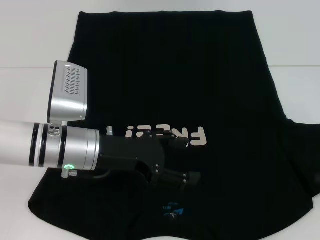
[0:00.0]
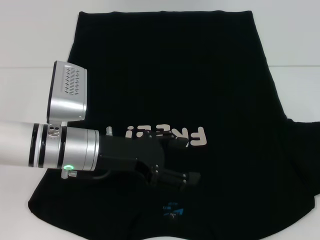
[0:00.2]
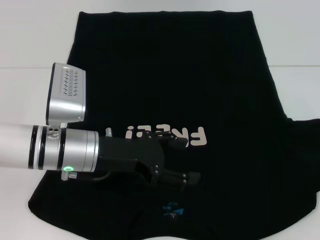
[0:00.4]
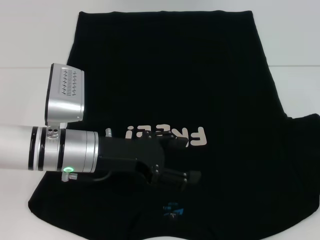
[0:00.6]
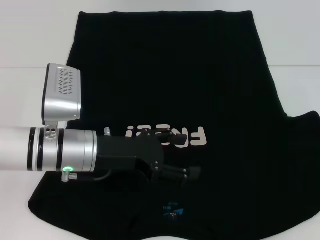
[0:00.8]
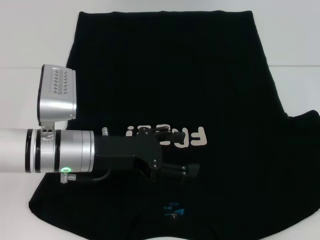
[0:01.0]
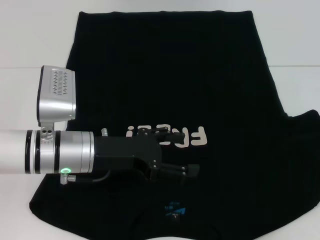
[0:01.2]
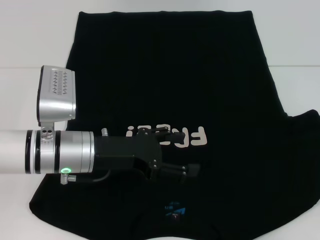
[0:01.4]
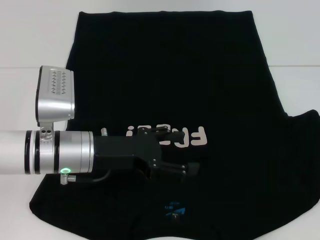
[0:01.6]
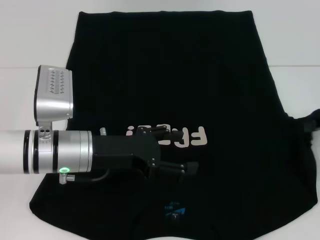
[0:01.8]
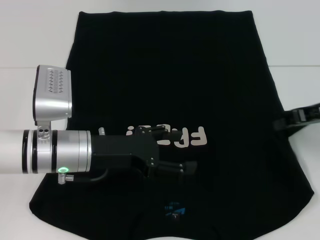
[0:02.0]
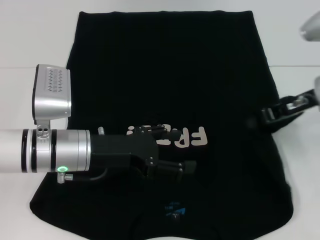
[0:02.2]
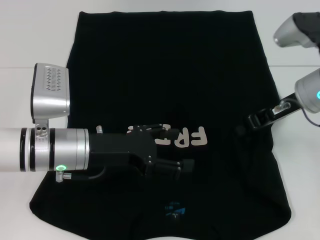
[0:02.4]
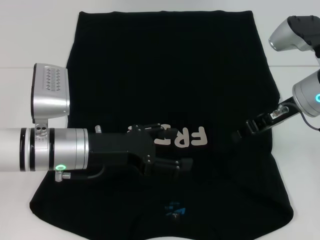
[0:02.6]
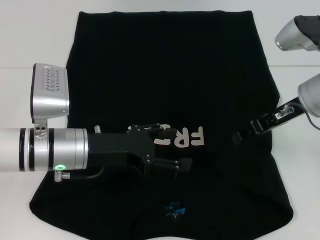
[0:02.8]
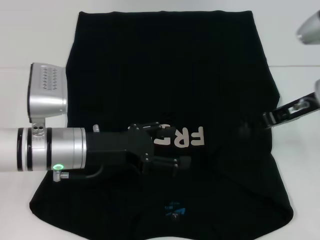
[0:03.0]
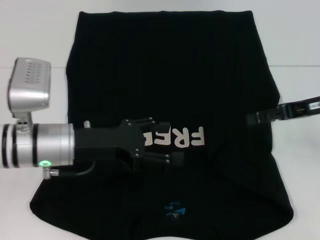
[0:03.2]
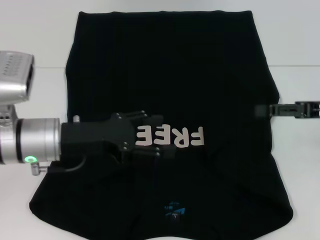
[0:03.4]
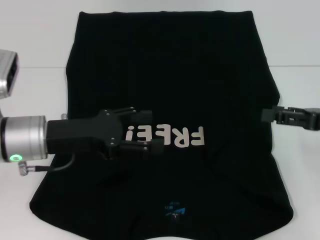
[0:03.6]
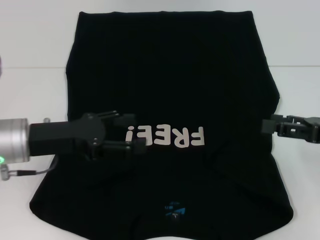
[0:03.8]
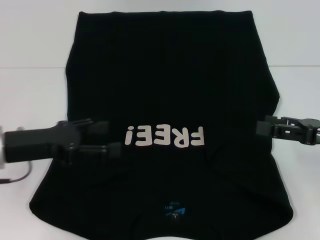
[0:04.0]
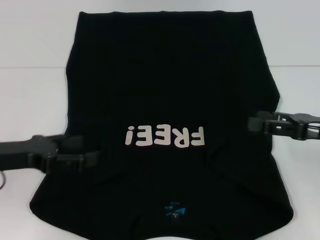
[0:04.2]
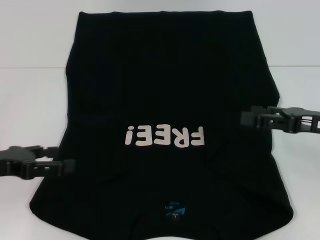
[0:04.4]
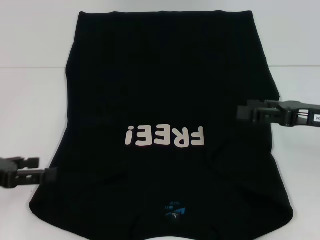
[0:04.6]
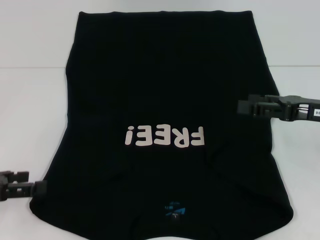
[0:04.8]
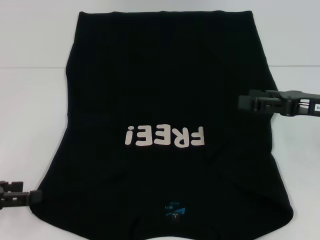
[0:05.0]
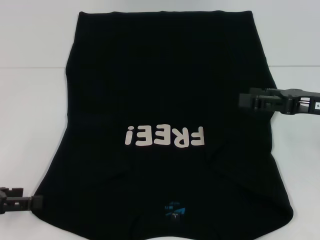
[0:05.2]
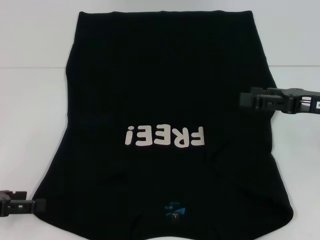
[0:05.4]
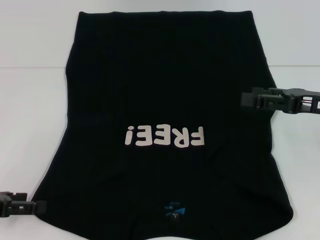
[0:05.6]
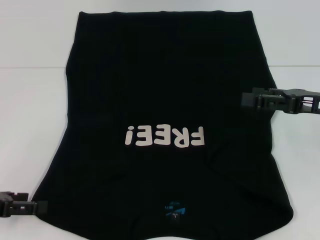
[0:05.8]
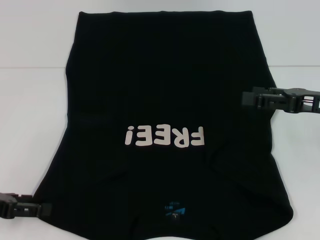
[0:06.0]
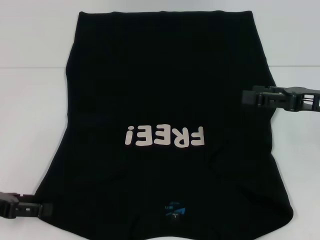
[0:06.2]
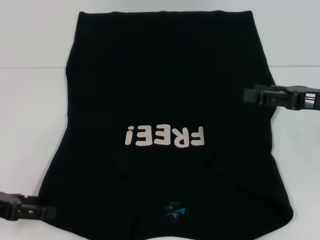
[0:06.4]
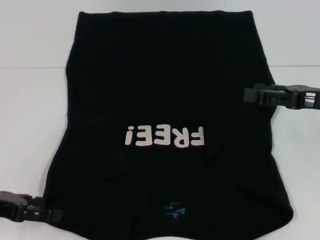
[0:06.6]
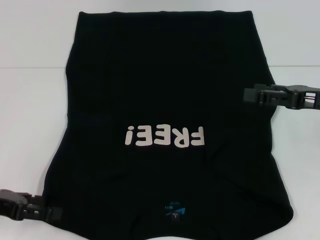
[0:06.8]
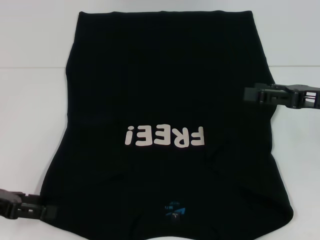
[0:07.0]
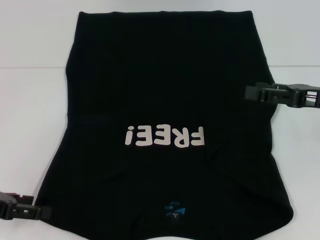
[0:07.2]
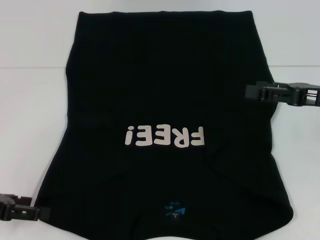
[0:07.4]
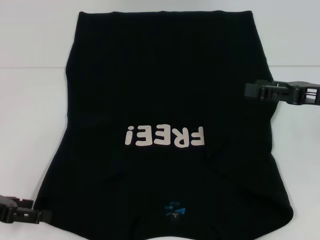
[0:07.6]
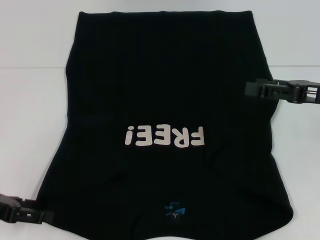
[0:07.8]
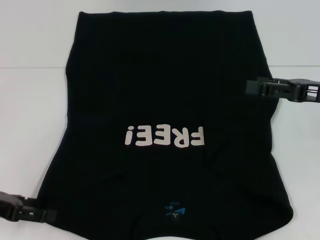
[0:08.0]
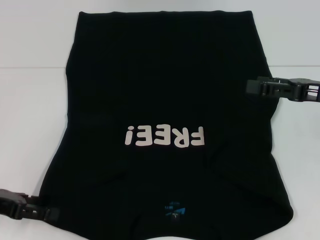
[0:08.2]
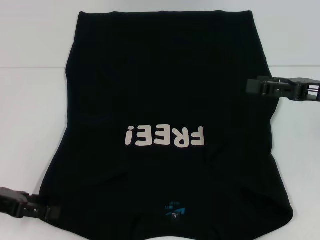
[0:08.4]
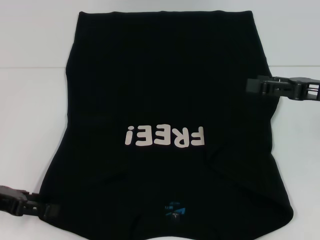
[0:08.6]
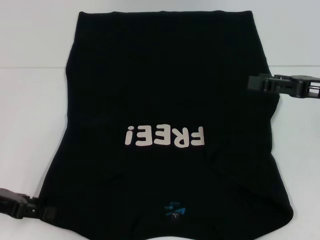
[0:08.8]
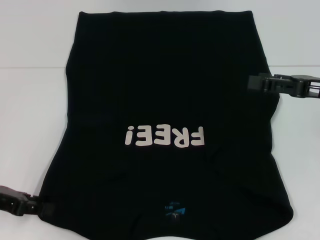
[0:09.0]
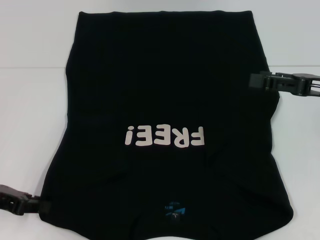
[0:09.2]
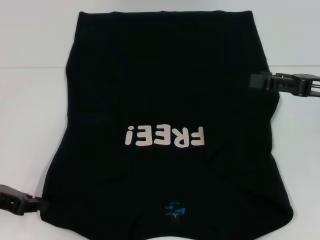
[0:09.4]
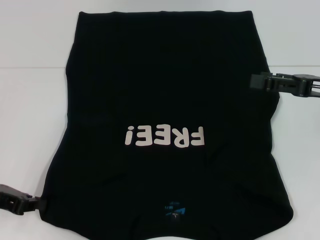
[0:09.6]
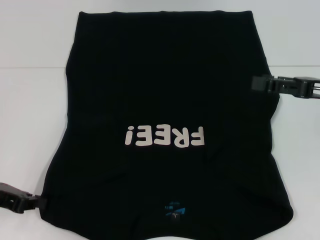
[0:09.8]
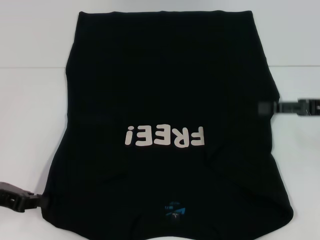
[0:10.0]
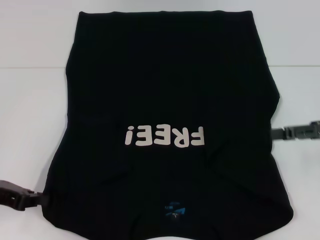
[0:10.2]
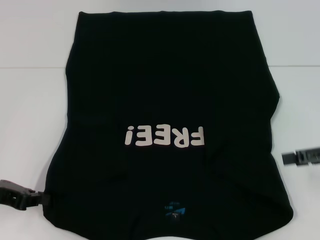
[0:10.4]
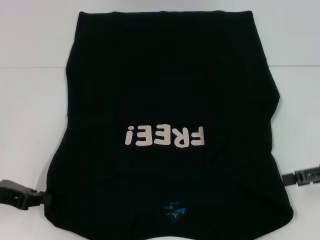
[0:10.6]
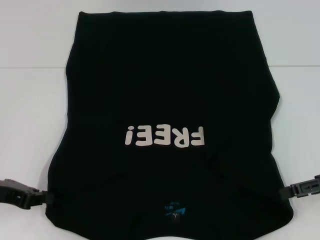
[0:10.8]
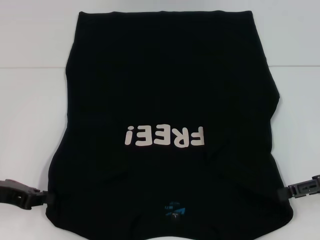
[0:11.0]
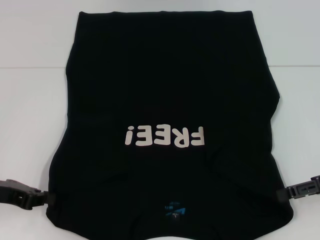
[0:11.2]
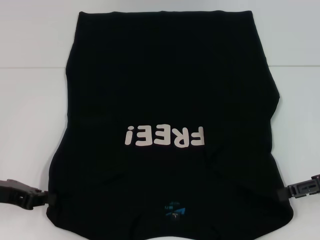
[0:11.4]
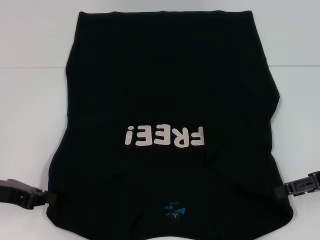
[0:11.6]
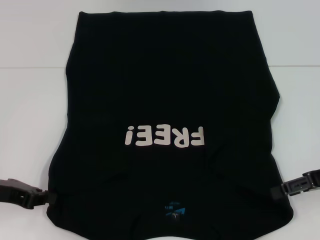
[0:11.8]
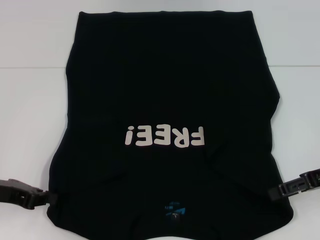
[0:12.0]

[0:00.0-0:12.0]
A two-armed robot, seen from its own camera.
Step, 0:01.0 to 0:03.4: Fold the bottom right sleeve with your right hand.
0:00.0 to 0:01.6: The right gripper moves about 5 cm.
0:01.6 to 0:03.0: The right gripper heads to the left, covering some 15 cm, and opens.
0:03.0 to 0:04.4: The left gripper shifts about 15 cm to the left. Meanwhile the right gripper goes roughly 5 cm backward, and opens its fingers.
0:04.4 to 0:06.0: The left gripper shifts by approximately 5 cm.
0:06.0 to 0:09.0: There are only small adjustments of the grippers.
0:09.0 to 0:10.4: The right gripper shifts by some 5 cm, while the left gripper closes.
0:10.4 to 0:12.0: The grippers make only small movements.

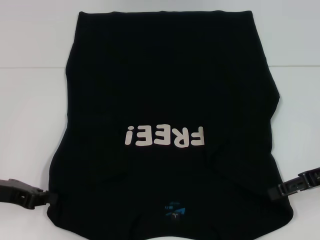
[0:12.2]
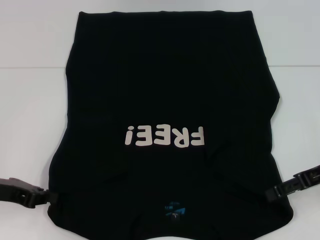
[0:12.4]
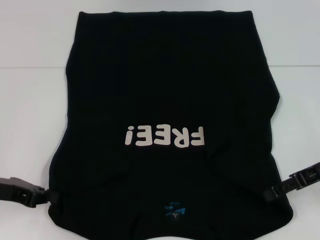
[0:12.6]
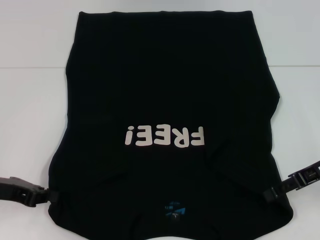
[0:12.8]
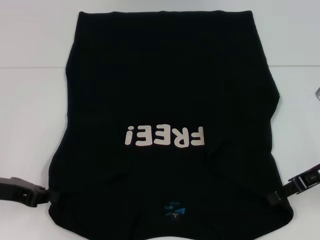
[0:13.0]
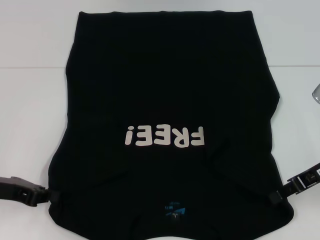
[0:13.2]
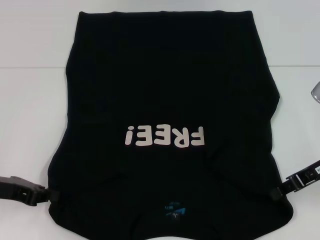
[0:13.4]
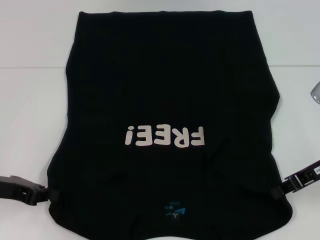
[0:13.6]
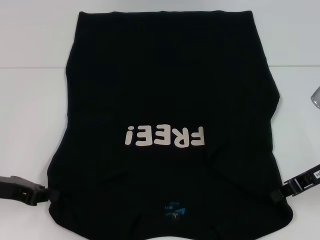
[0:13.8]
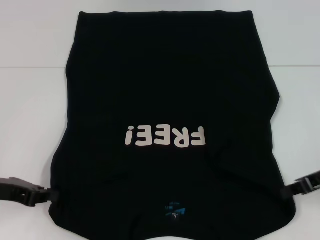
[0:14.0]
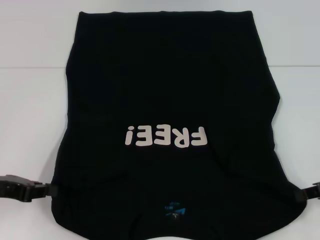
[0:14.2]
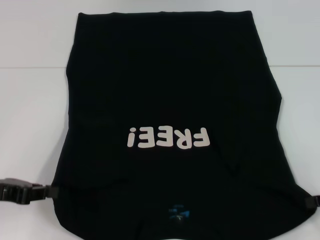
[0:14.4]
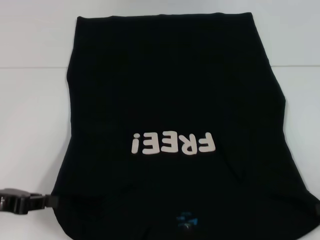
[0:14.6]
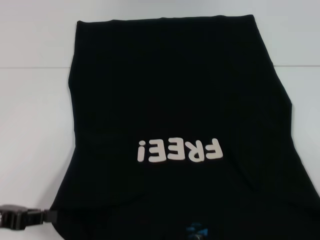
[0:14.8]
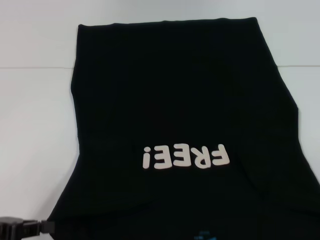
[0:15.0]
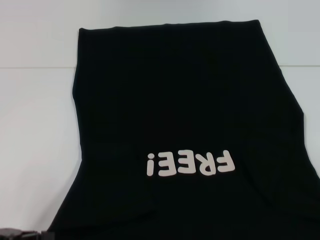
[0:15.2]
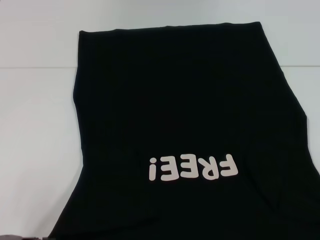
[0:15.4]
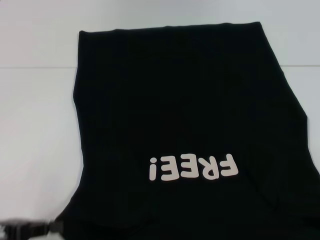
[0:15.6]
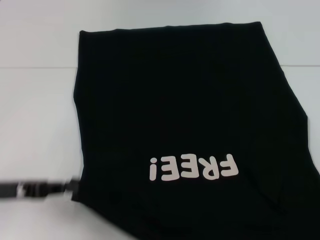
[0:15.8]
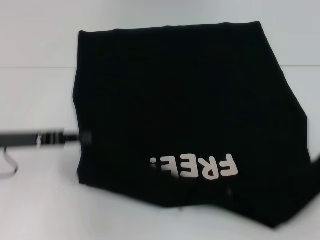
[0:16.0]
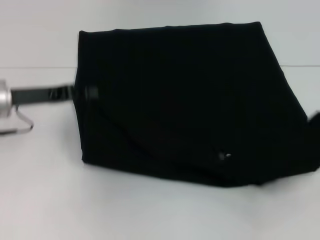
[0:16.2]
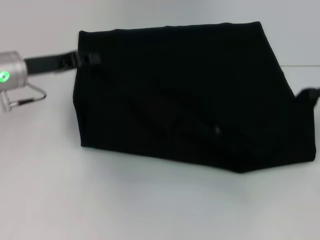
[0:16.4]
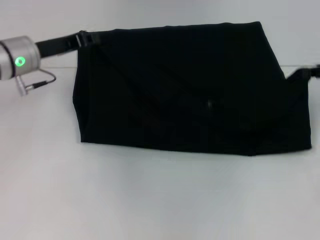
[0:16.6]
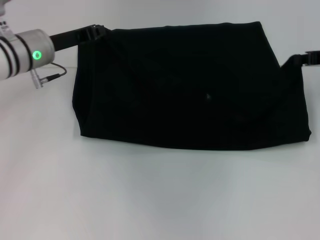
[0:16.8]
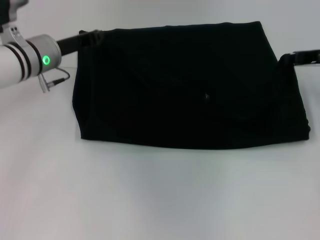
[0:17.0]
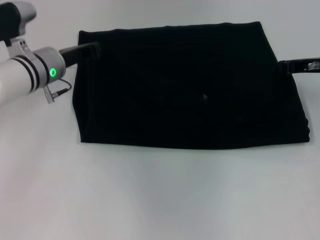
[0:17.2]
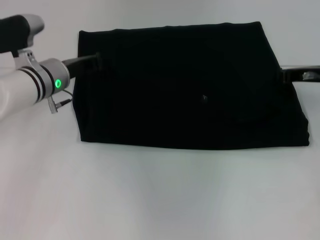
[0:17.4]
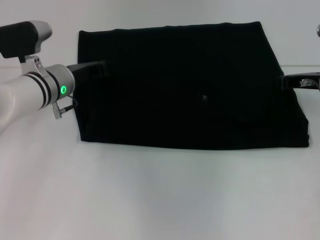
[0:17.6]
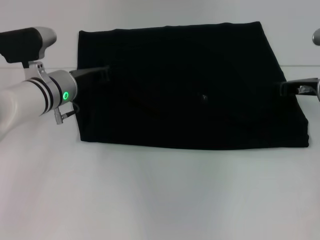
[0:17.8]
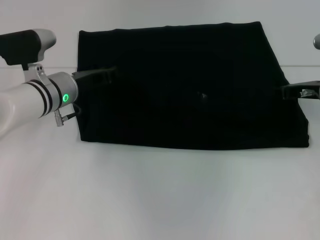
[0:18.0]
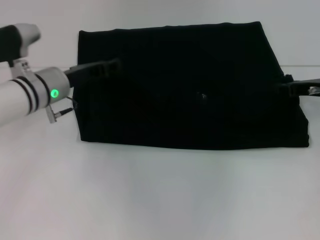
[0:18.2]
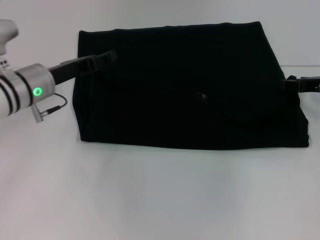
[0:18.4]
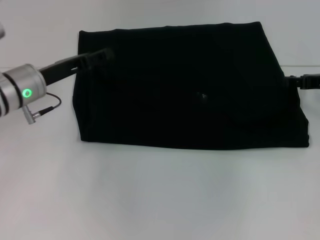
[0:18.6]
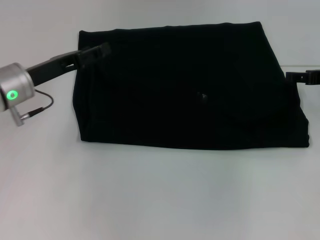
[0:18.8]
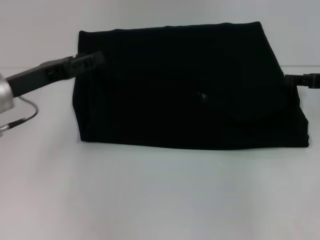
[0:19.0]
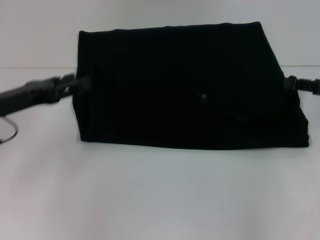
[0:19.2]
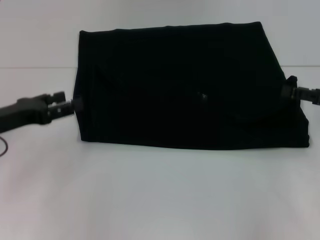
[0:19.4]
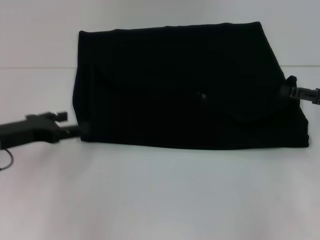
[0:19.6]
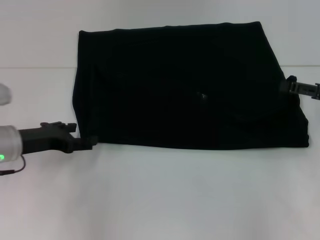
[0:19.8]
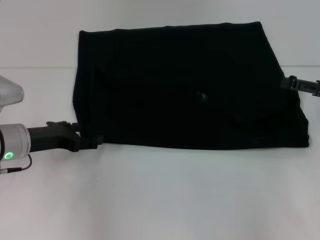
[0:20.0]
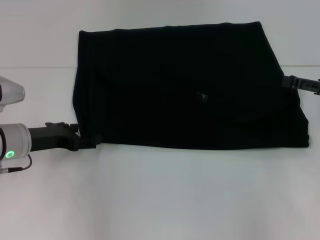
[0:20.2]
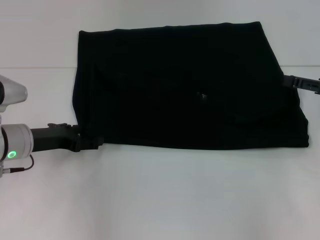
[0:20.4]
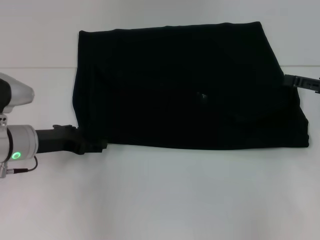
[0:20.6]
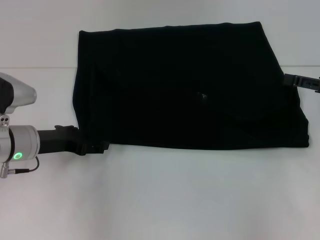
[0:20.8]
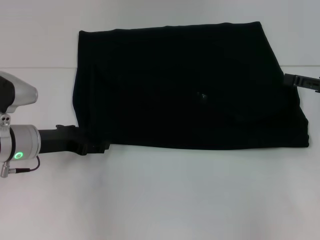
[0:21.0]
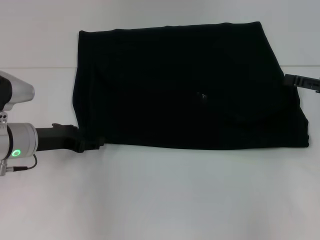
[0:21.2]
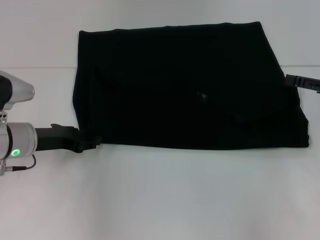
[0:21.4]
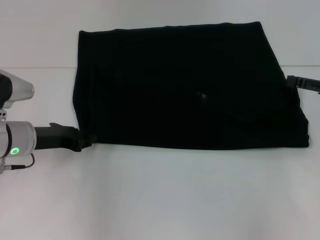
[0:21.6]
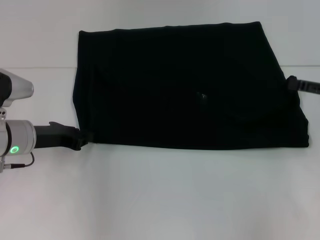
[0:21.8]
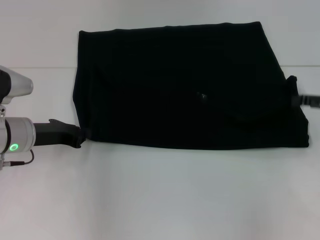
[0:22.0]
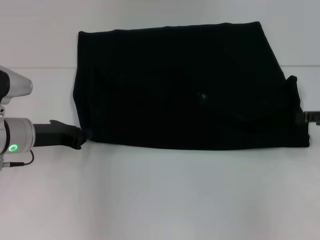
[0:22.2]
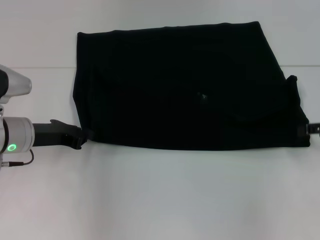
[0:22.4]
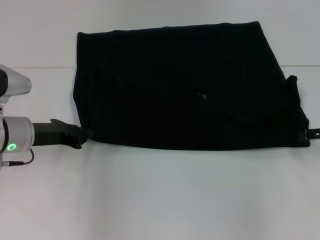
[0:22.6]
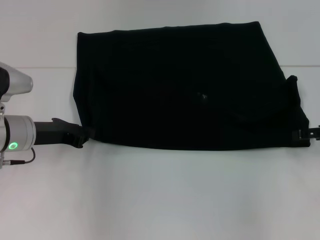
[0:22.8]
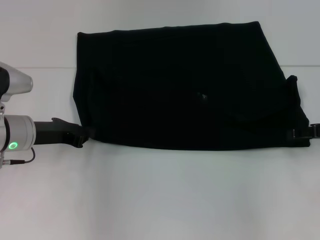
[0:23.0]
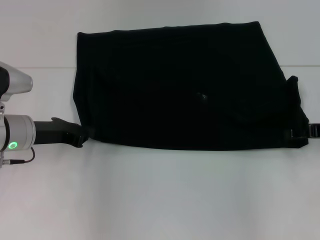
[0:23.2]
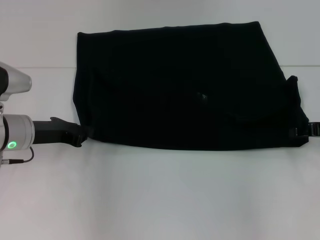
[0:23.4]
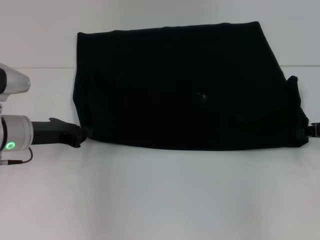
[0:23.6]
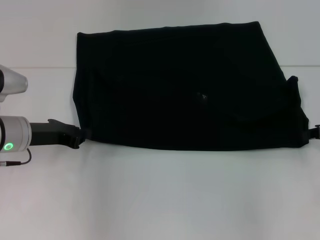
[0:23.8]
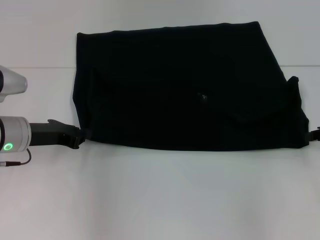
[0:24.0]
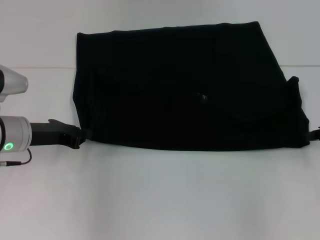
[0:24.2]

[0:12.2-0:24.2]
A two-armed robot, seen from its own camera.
Step, 0:12.2 to 0:14.4: Grab the bottom left corner with your left hand.
Step, 0:12.2 to 0:14.4: Grab the bottom right corner with your right hand.
Step, 0:14.6 to 0:18.6: Fold the clothes with your left hand.
Step, 0:14.6 to 0:18.6: Fold the clothes with your right hand.
0:12.2 to 0:13.8: The right gripper closes its fingers.
0:13.8 to 0:15.2: The right gripper shifts approximately 20 cm to the right and backward, while the left gripper moves backward, approximately 10 cm.
0:15.2 to 0:16.6: Both grippers travel together forward, some 25 cm.
0:16.6 to 0:18.2: The grippers both shift downward by about 5 cm. The right gripper opens.
0:18.2 to 0:19.8: The right gripper shifts roughly 5 cm backward, and opens; the left gripper travels backward and to the left by about 10 cm, and opens.
0:19.8 to 0:21.2: There are only small adjustments of the grippers.
0:21.2 to 0:22.6: The left gripper closes up.
0:22.6 to 0:24.2: The right gripper closes its fingers.
